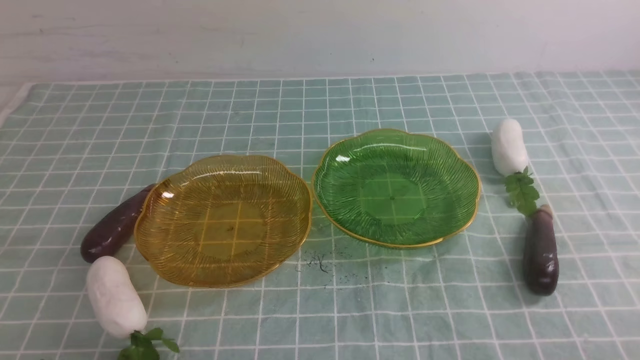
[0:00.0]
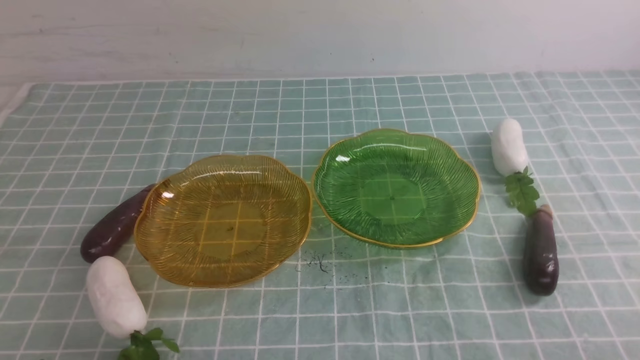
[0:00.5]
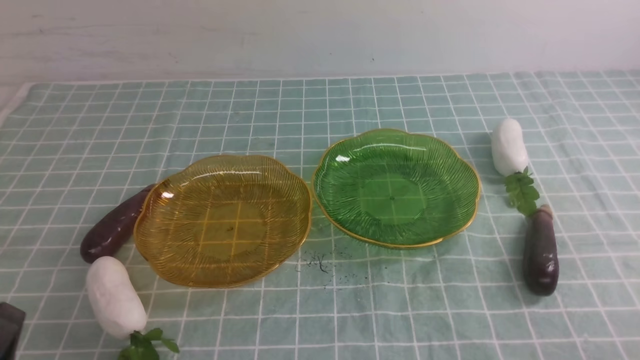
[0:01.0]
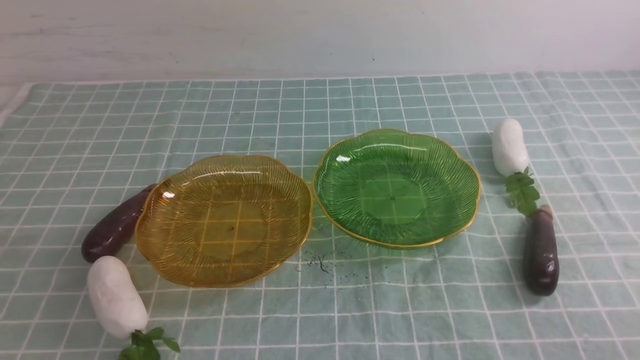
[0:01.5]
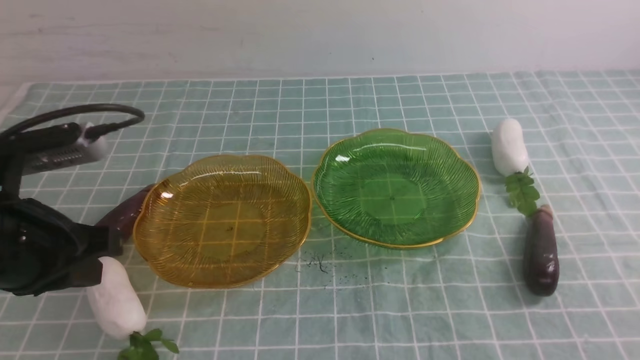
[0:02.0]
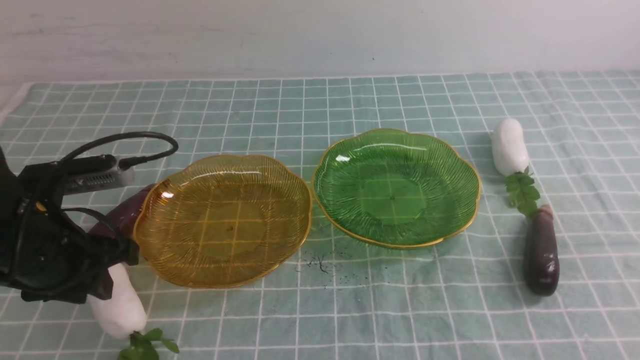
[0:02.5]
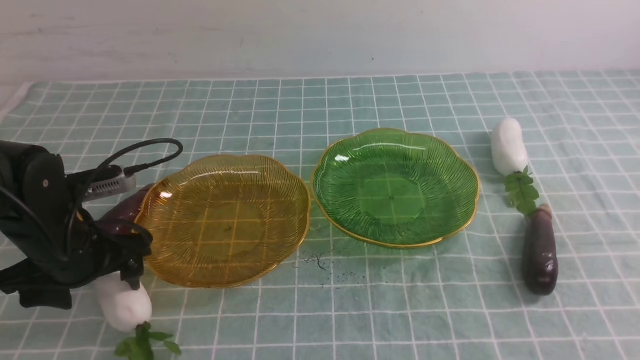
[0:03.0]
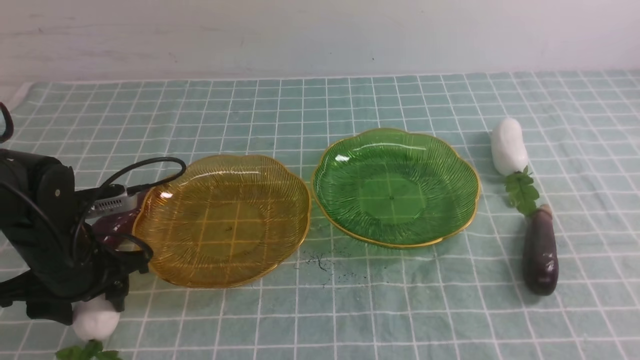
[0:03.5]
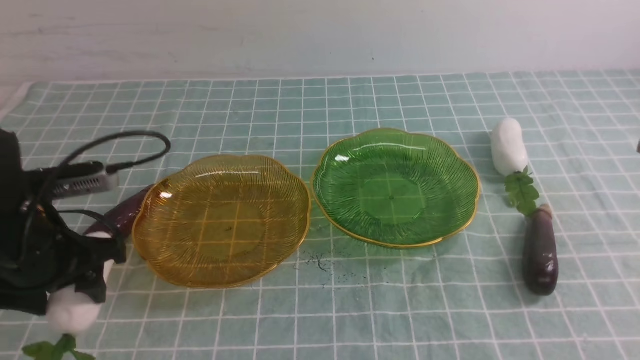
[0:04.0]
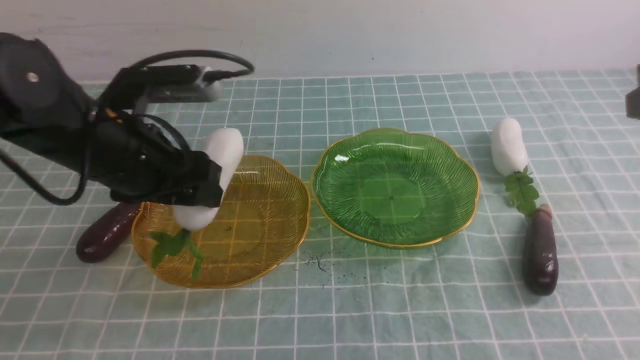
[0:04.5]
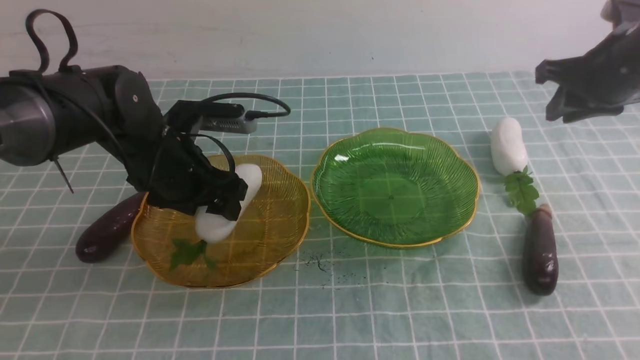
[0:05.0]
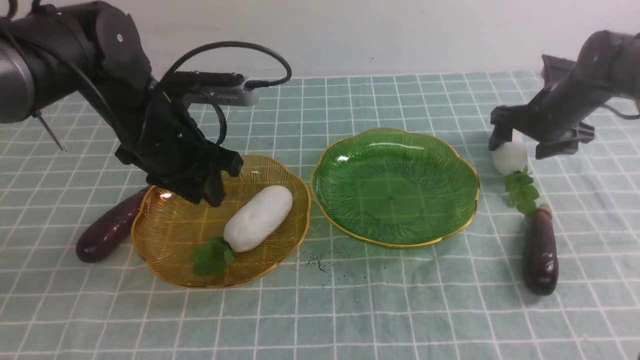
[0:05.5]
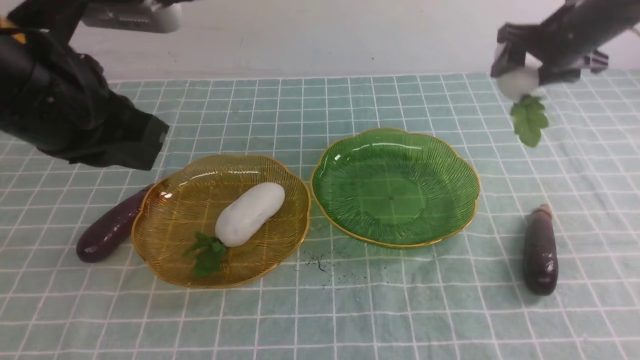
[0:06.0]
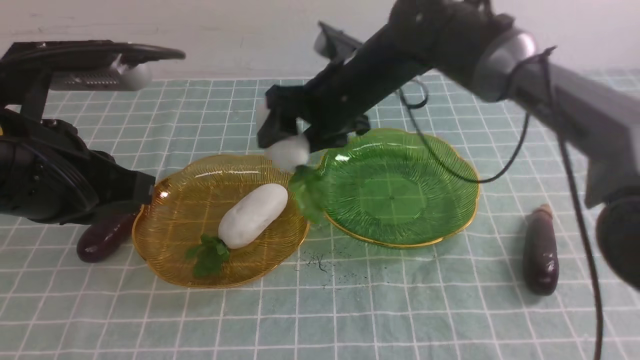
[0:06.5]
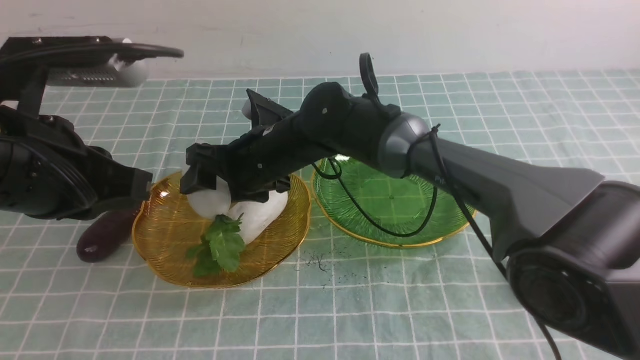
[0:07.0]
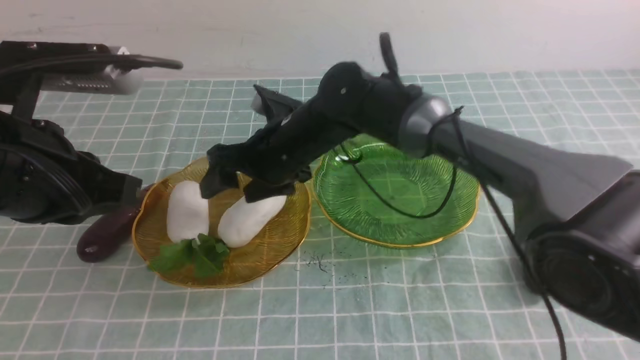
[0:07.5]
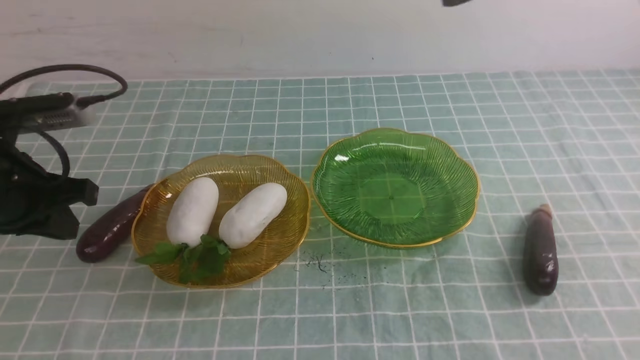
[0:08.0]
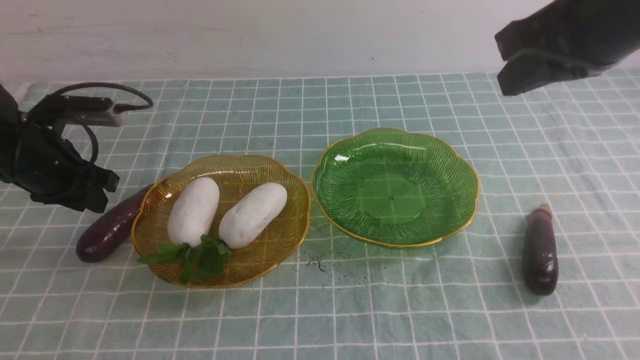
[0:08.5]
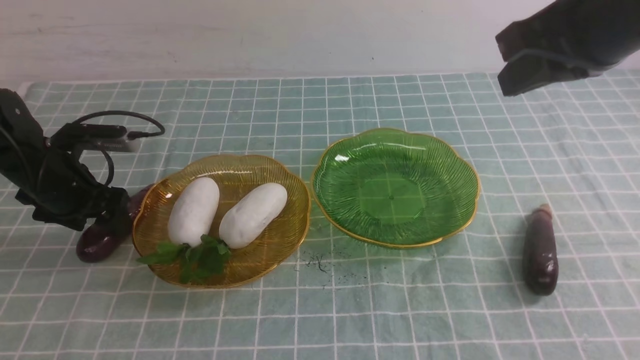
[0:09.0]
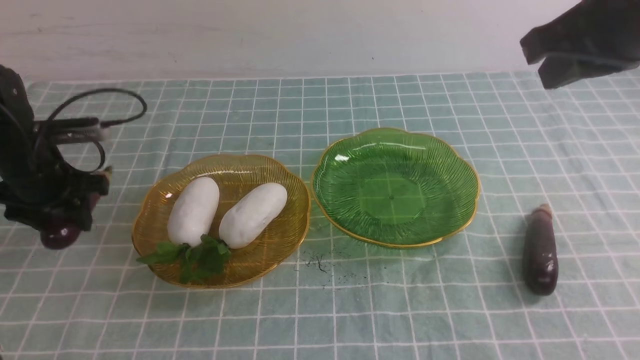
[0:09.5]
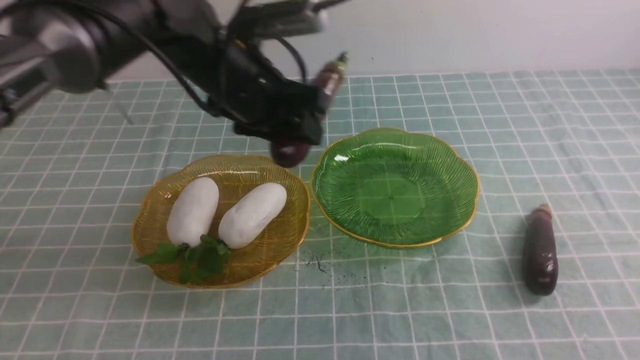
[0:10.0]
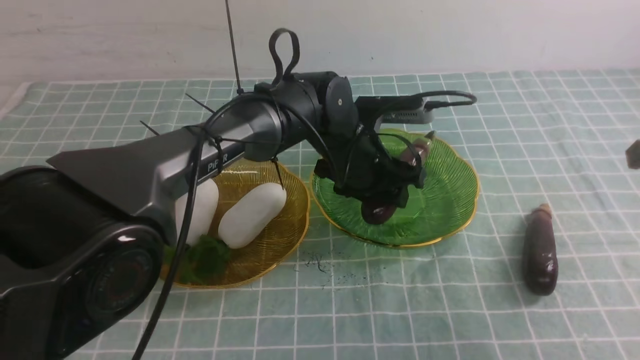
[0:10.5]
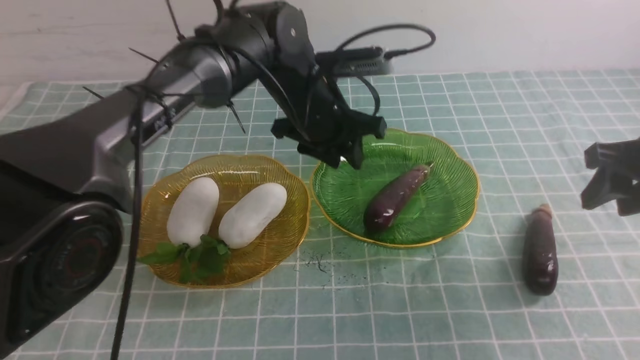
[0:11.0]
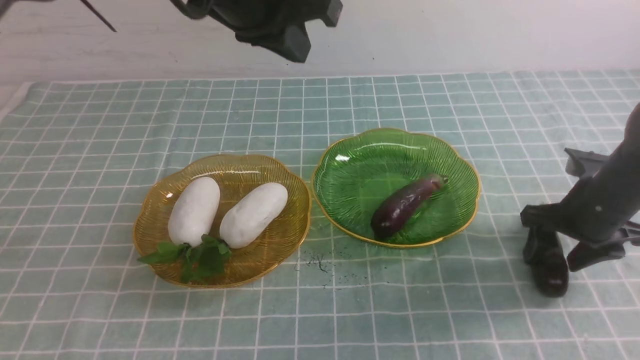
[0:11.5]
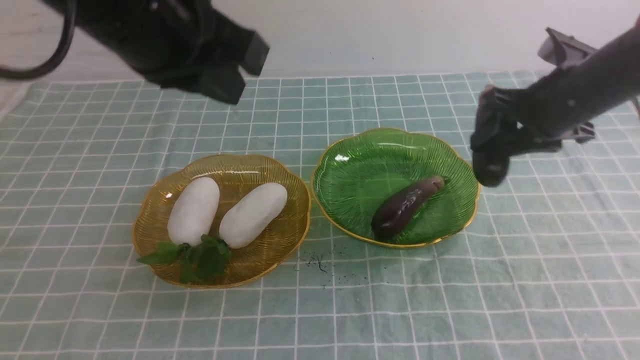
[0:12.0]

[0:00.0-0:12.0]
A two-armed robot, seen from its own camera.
Step, 0:00.0 to 0:05.0: use the left arm to grab a radish and put it into the left plate.
Step, 0:05.5 to 0:07.0: use the right arm to grab a radish and put it into the left plate.
Step, 0:07.5 to 0:10.5: use the left arm to grab an eggplant and put it into the right plate.
0:00.0 to 0:02.0: The left gripper is displaced forward and upward by some 20 cm.
0:02.0 to 0:04.0: The left gripper goes about 5 cm forward, and opens.
0:04.0 to 0:06.0: The right gripper goes approximately 35 cm forward, and opens, while the left gripper moves upward and to the right, roughly 15 cm, and closes.
0:06.0 to 0:08.0: The right gripper travels backward and upward by approximately 20 cm, reaches about 30 cm to the left, then returns, and closes. Meanwhile the left gripper is displaced downward, to the left and forward by roughly 15 cm.
0:08.0 to 0:10.0: The left gripper heads to the right and forward, covering roughly 25 cm, and opens its fingers. Meanwhile the right gripper travels to the right by some 15 cm.
0:10.0 to 0:12.0: The right gripper shifts approximately 20 cm downward, to the left and forward, and opens. The left gripper is displaced backward and upward by approximately 20 cm, and closes its fingers.

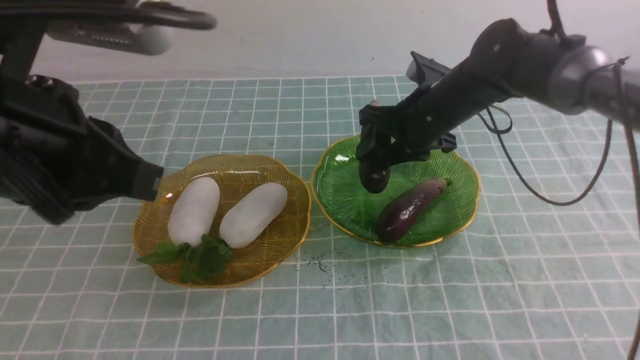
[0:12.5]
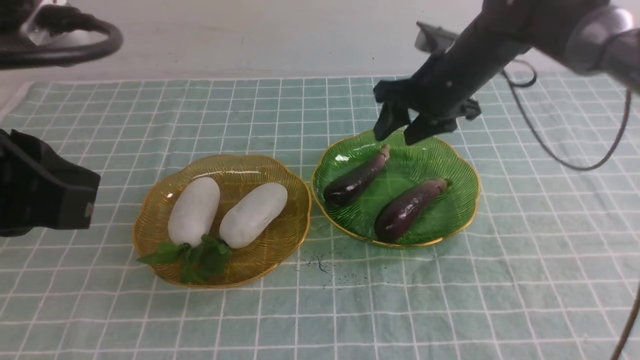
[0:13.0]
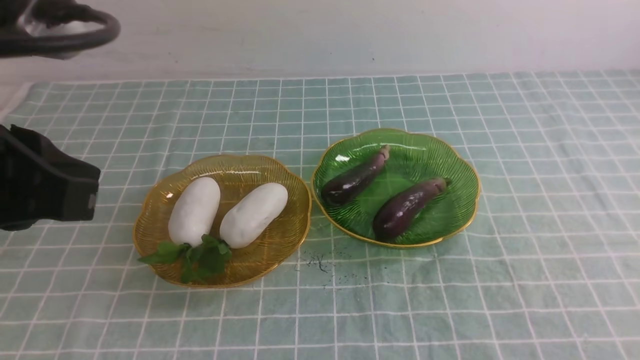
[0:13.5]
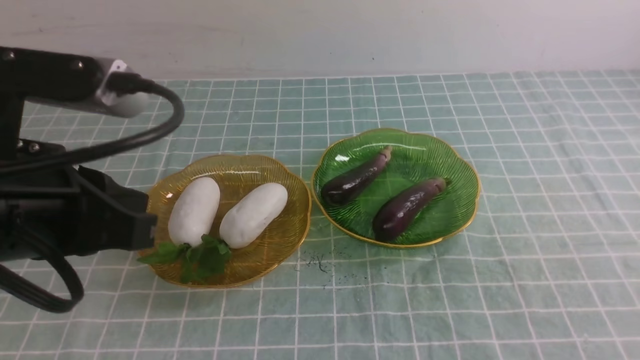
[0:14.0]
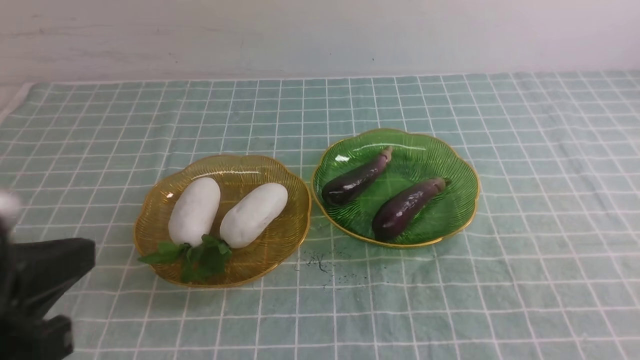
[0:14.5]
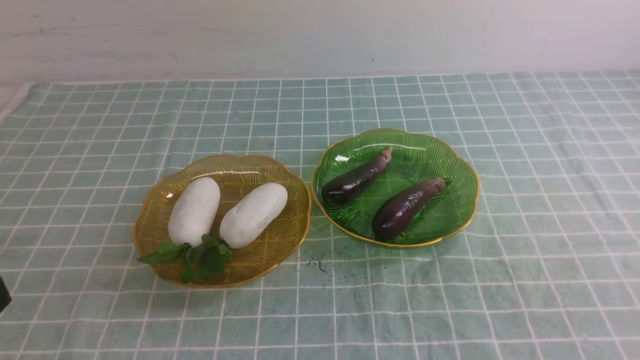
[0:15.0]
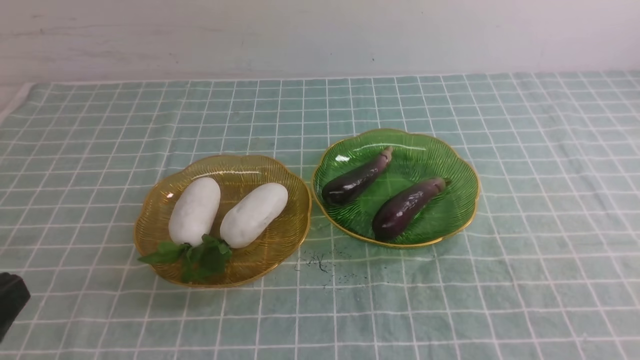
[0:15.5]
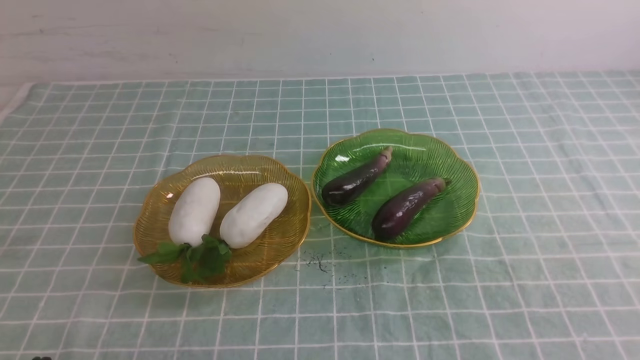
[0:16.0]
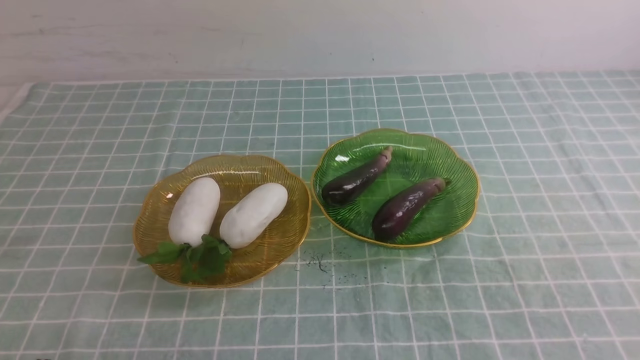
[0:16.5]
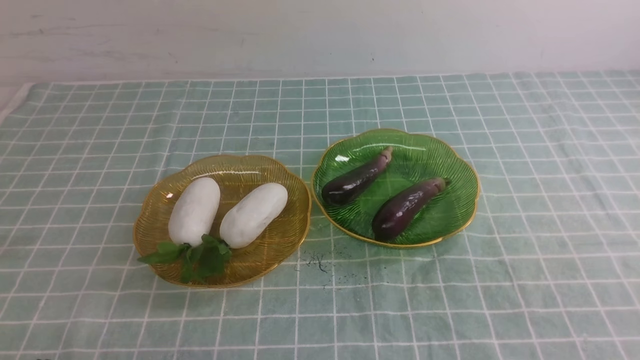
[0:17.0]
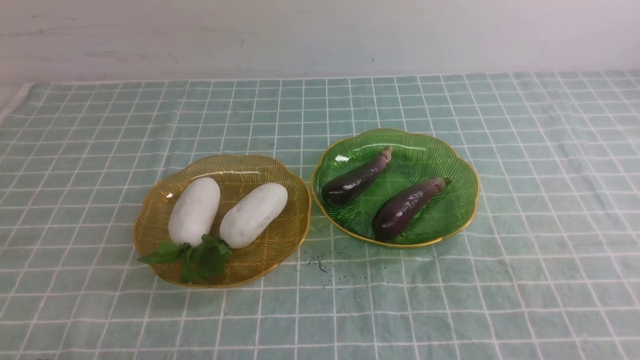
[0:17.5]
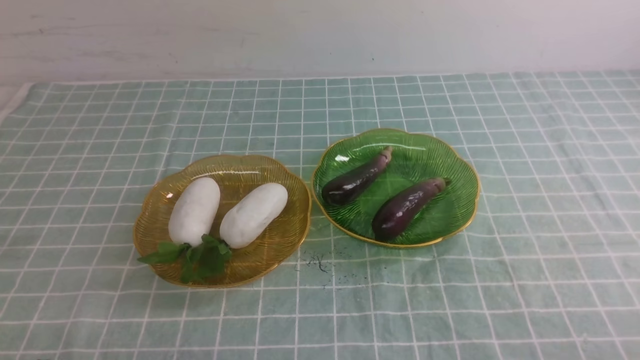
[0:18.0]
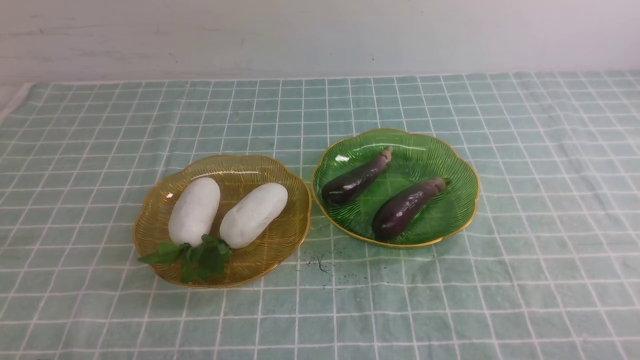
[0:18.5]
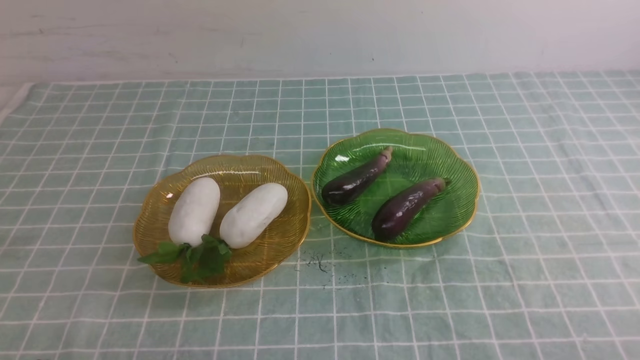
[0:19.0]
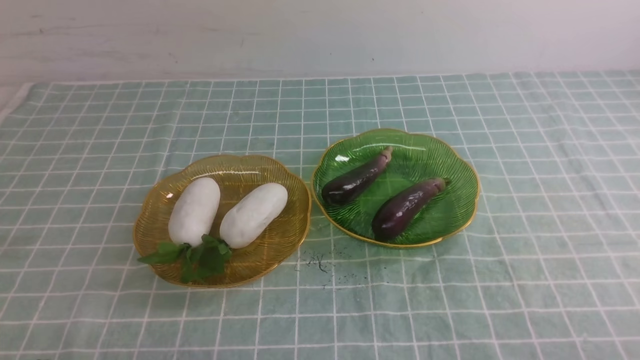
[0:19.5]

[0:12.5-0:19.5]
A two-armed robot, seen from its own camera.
0:12.5 to 0:14.5: The right gripper moves backward, roughly 40 cm, and closes its fingers. The left gripper heads backward and downward, covering approximately 10 cm.
0:14.5 to 0:16.0: The left gripper moves downward, roughly 15 cm.
